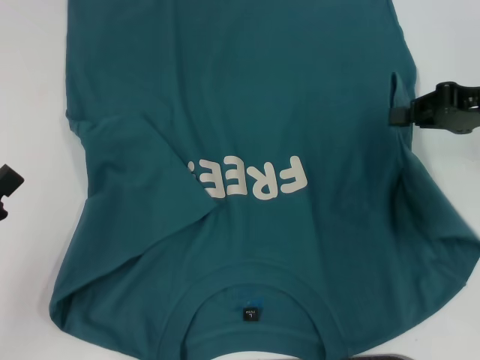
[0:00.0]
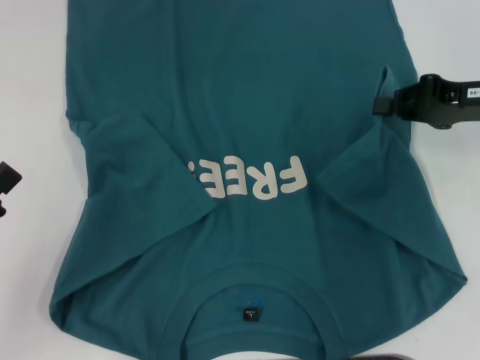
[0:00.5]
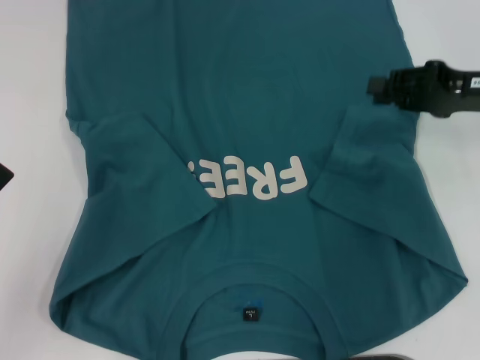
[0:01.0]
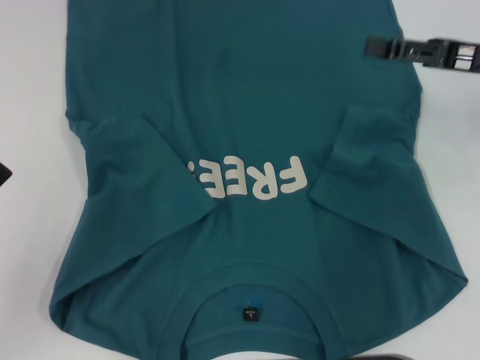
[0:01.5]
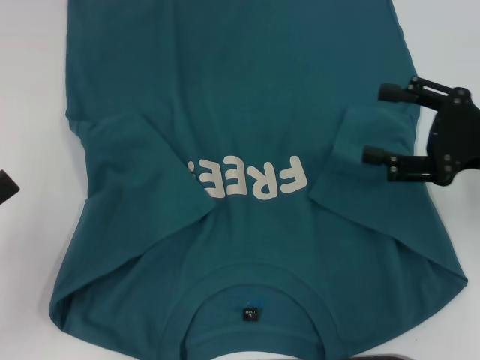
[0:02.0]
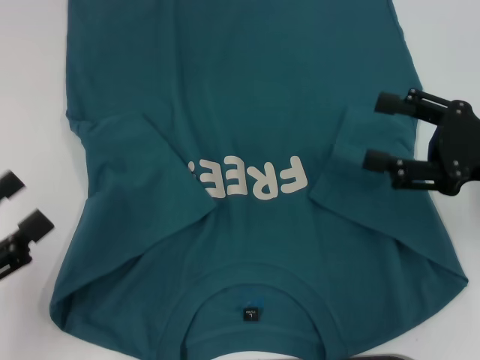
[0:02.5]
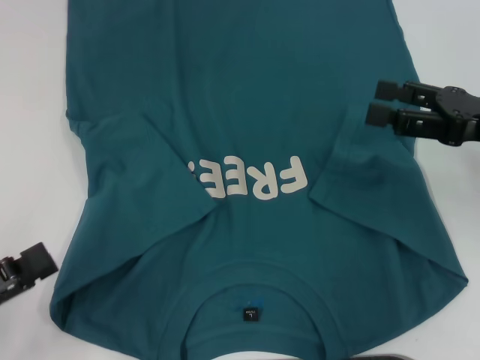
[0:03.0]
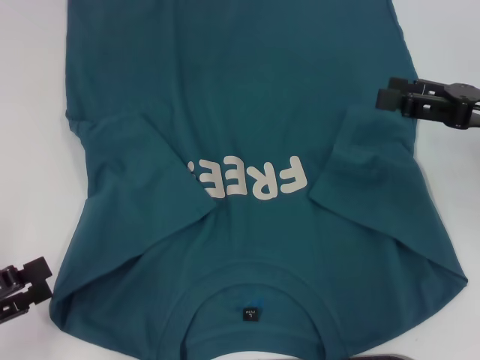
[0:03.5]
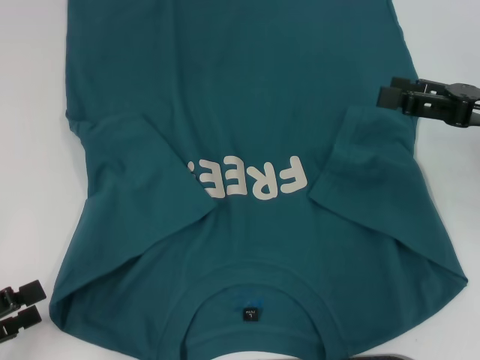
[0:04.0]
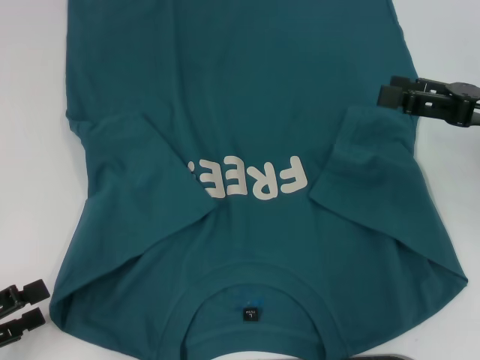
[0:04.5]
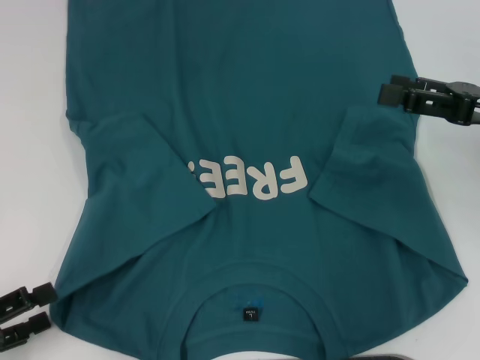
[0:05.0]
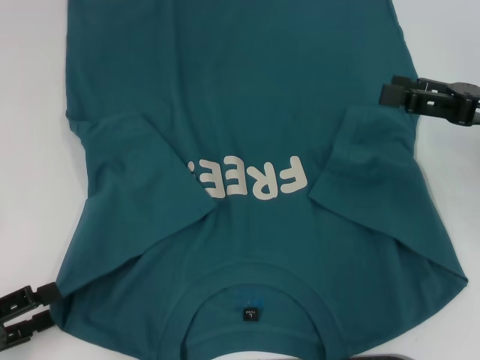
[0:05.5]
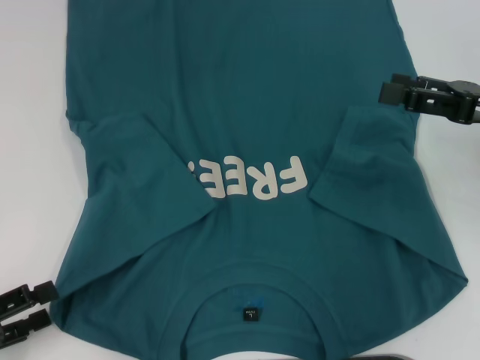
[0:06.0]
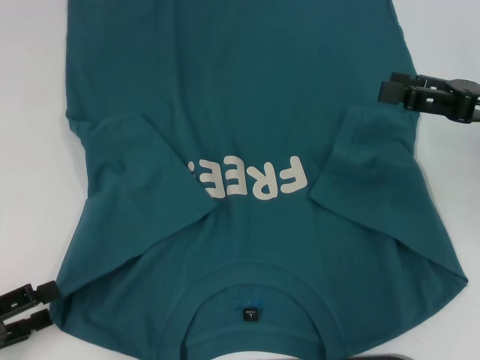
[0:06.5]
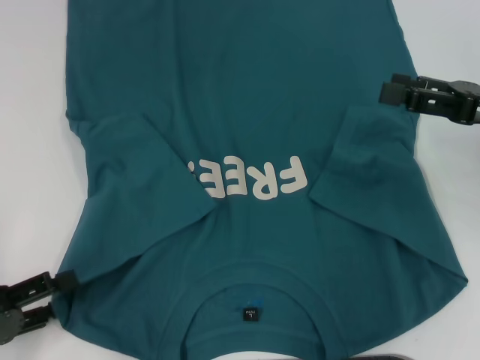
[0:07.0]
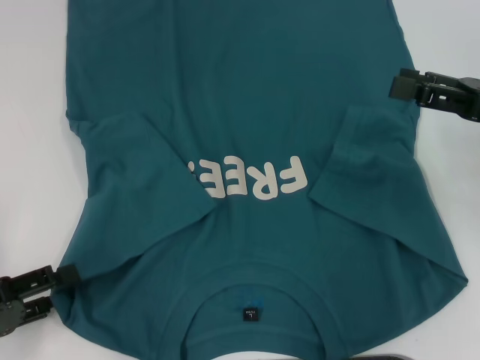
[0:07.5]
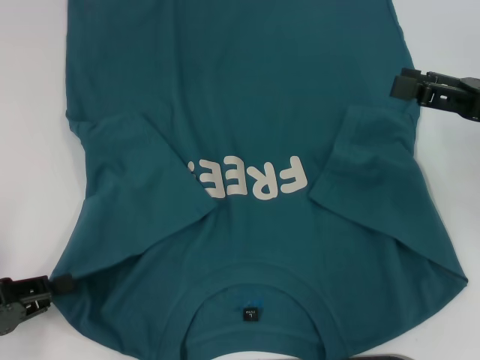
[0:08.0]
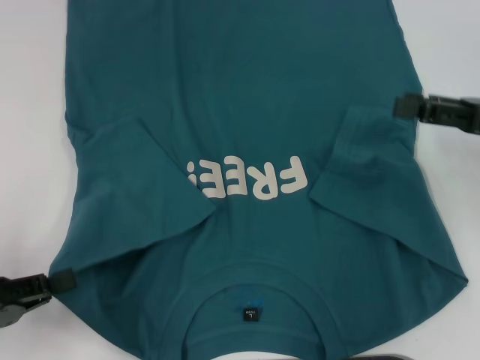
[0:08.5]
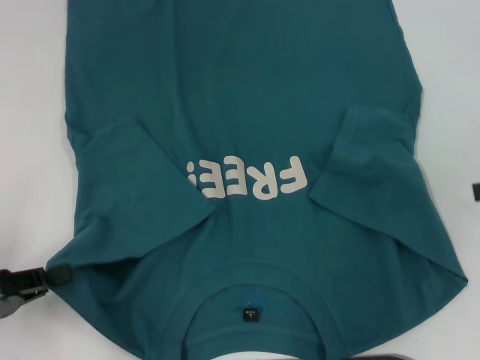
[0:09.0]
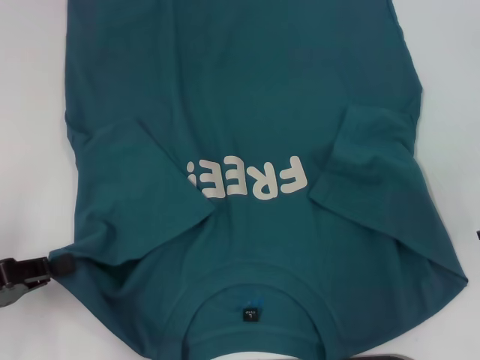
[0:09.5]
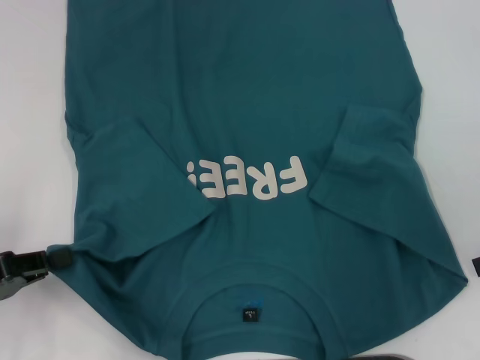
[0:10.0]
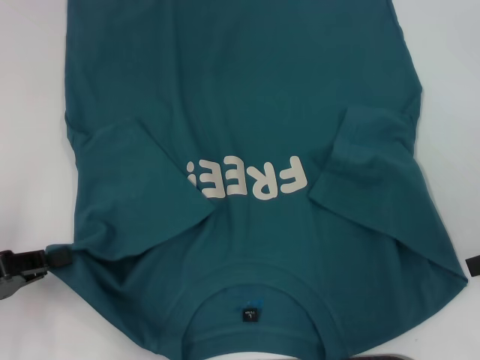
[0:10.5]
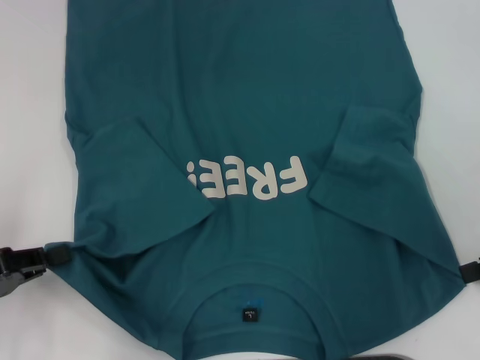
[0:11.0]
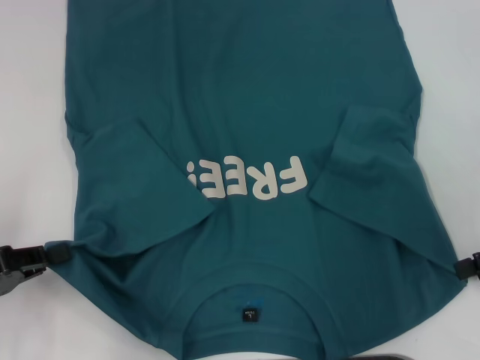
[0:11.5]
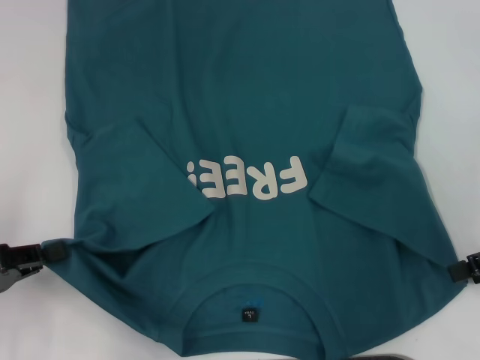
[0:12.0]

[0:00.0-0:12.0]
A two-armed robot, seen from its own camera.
Step, 0:01.5 to 0:08.5: Grab the bottom left corner with your left hand.
0:00.0 to 0:02.0: The right gripper is displaced backward by roughly 5 cm, and opens its fingers.
0:02.0 to 0:04.0: The left gripper is displaced downward by some 5 cm.
0:04.0 to 0:06.0: The grippers move only a little.
0:06.0 to 0:08.0: The left gripper closes its fingers.
0:08.0 to 0:10.0: The left gripper closes up, while the right gripper goes some 5 cm to the right.
0:10.0 to 0:12.0: The grippers make only small movements.

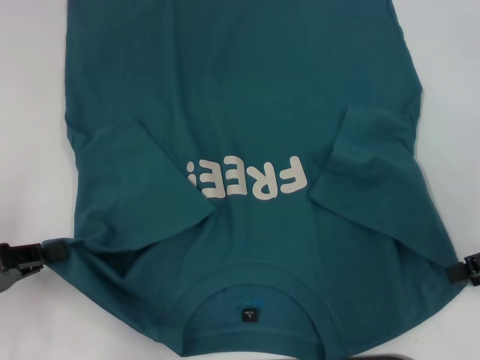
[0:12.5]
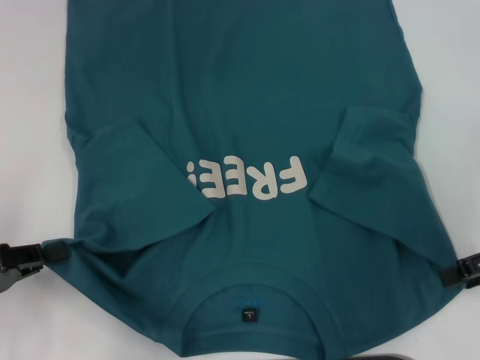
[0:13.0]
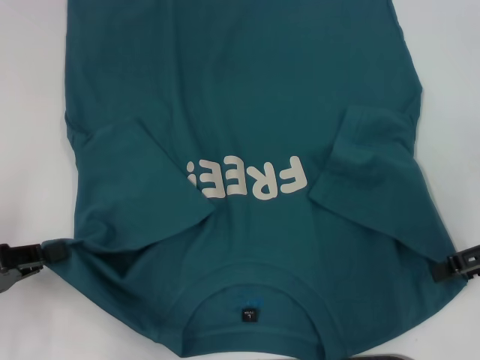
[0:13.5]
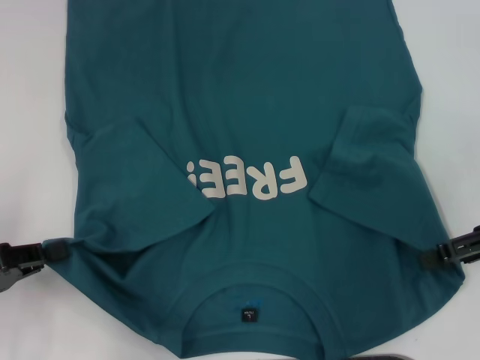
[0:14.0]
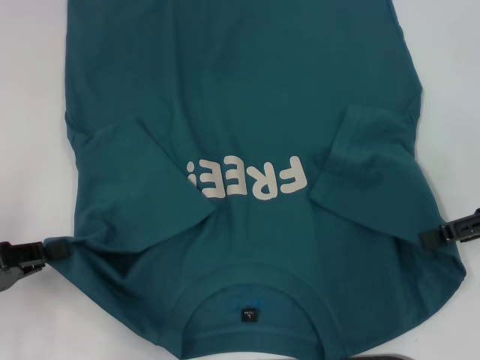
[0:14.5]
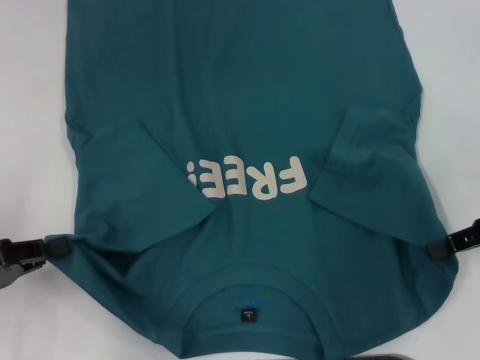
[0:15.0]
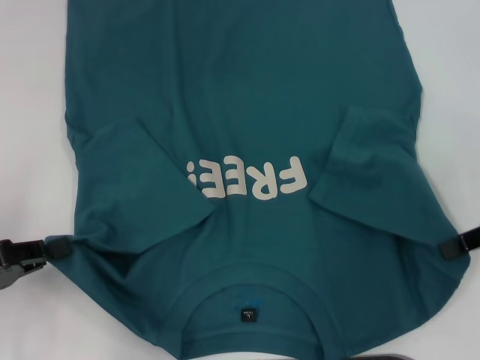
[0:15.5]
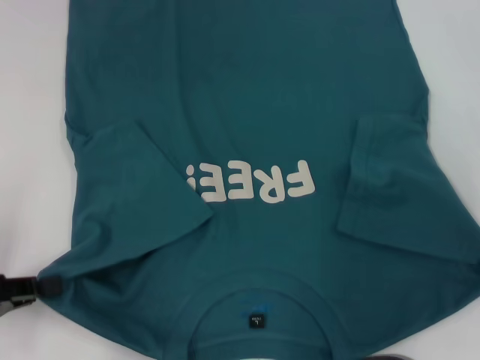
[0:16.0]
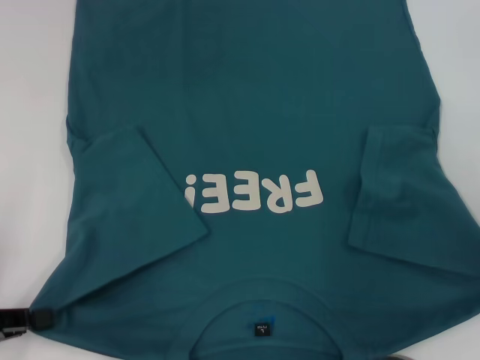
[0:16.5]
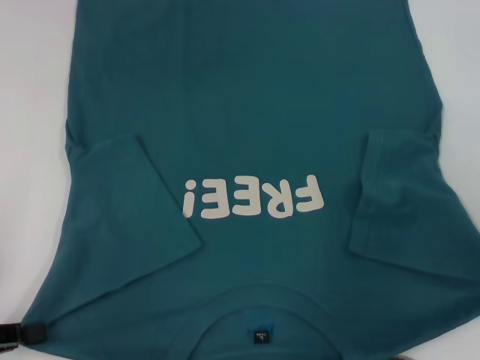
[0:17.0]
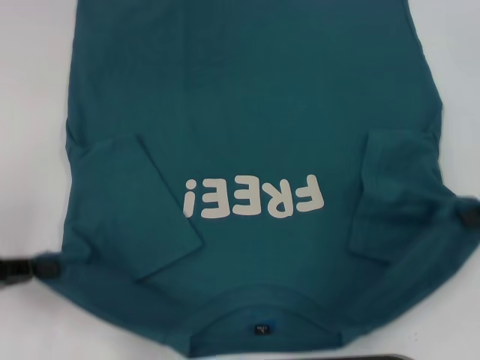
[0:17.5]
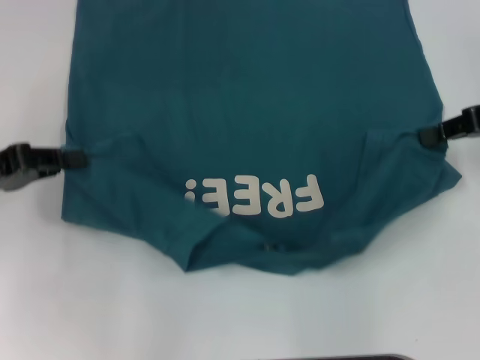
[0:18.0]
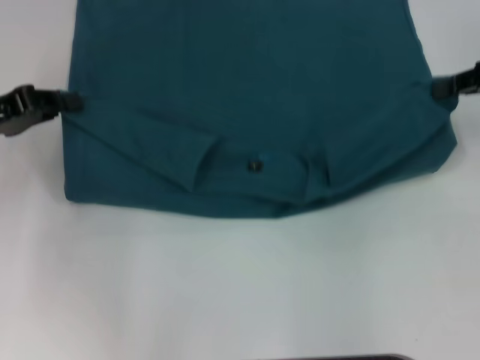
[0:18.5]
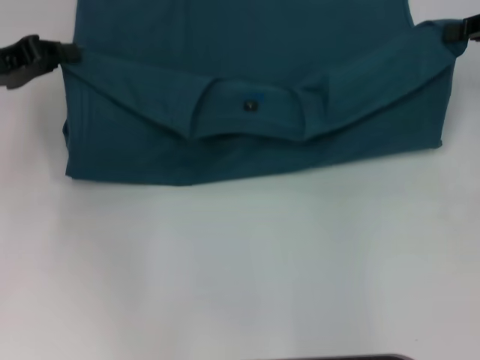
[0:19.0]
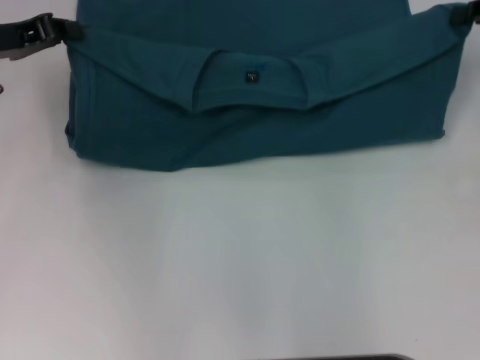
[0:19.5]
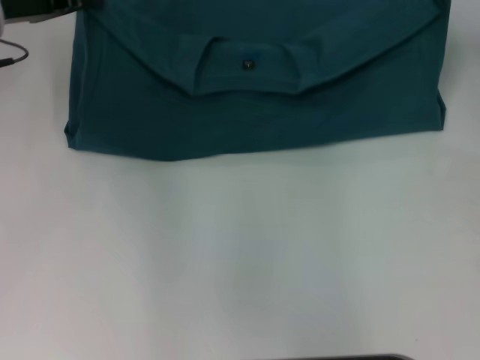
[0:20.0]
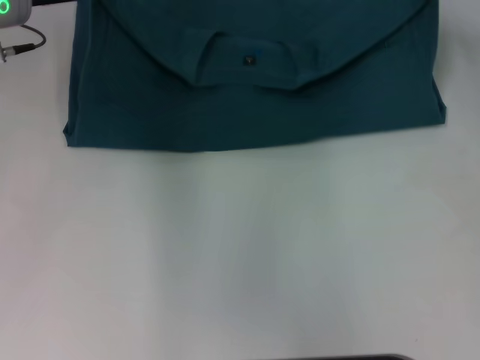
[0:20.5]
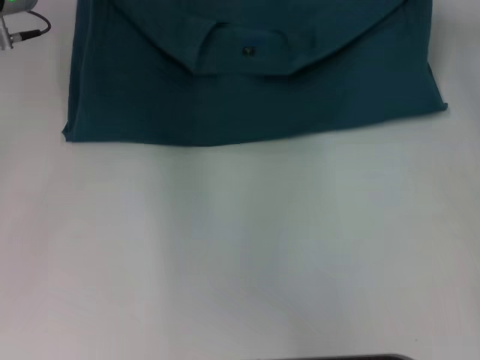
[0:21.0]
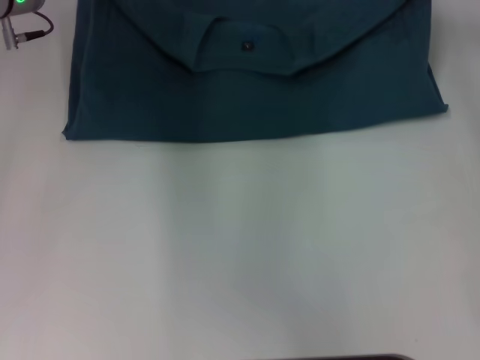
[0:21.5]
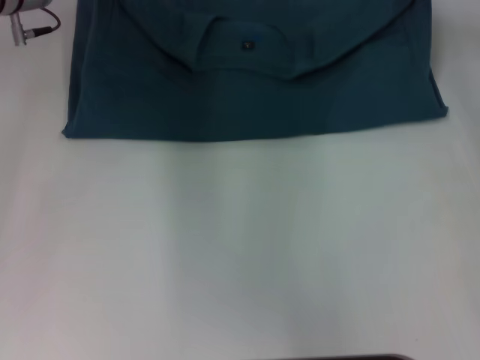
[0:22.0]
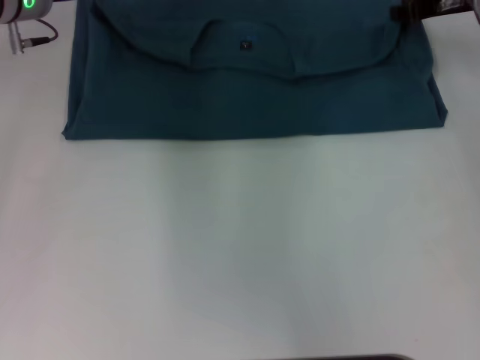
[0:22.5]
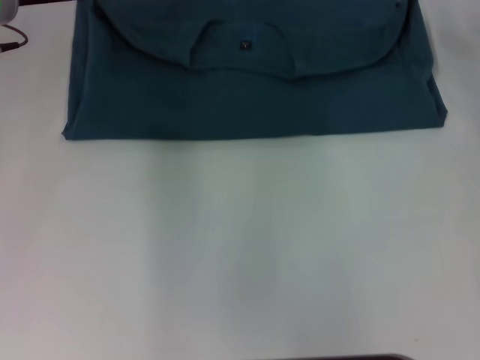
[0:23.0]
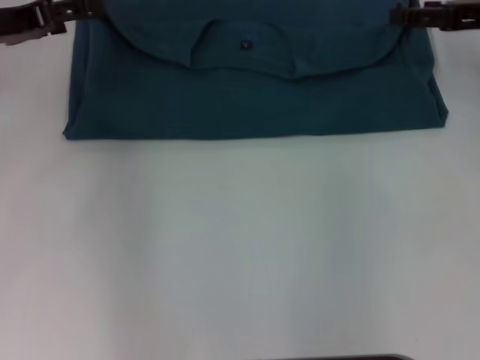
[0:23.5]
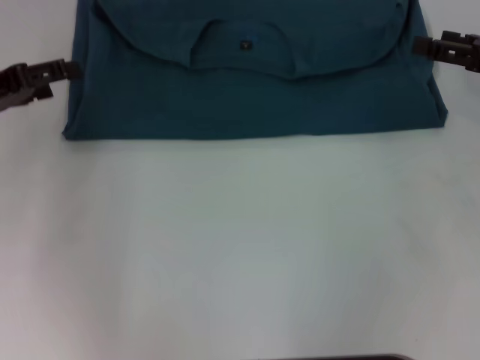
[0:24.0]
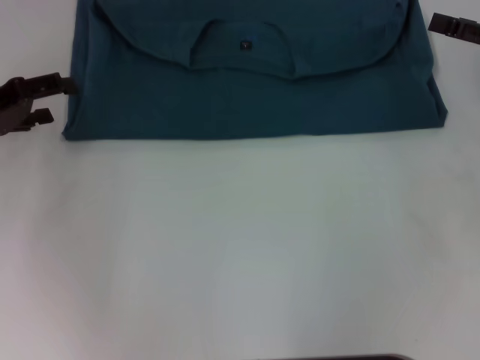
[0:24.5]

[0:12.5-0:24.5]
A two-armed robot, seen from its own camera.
Step, 0:12.5 to 0:15.0: Grab the bottom right corner with your right hand.
Step, 0:15.5 to 0:22.5: Fold the clothes to the left.
Step, 0:15.5 to 0:22.5: Fold the clothes to the right.
0:12.5 to 0:14.5: The grippers move only a little.
0:14.5 to 0:16.5: The right gripper closes up.
0:16.5 to 0:18.5: The left gripper goes about 15 cm forward; the right gripper moves forward and upward, some 10 cm.
0:18.5 to 0:20.5: The right gripper moves forward, about 10 cm; the left gripper goes about 15 cm forward and to the right.
0:20.5 to 0:22.5: The grippers make only small movements.
0:22.5 to 0:24.5: The left gripper heads to the left and backward, covering about 15 cm, and opens up. Meanwhile the right gripper is displaced backward and to the right by about 15 cm, and opens its fingers.

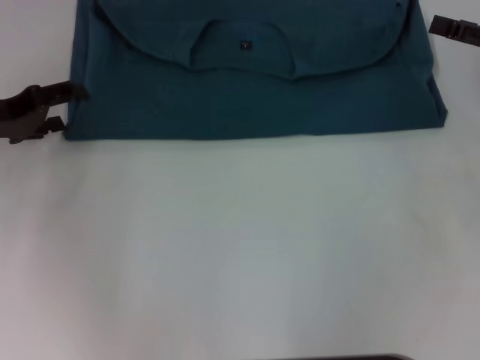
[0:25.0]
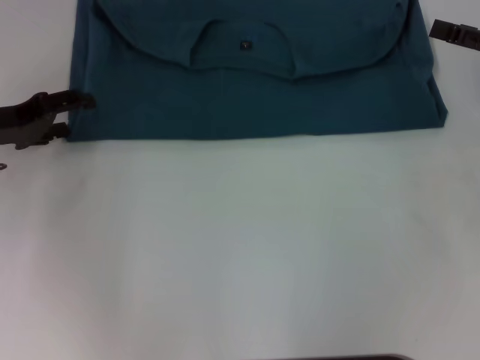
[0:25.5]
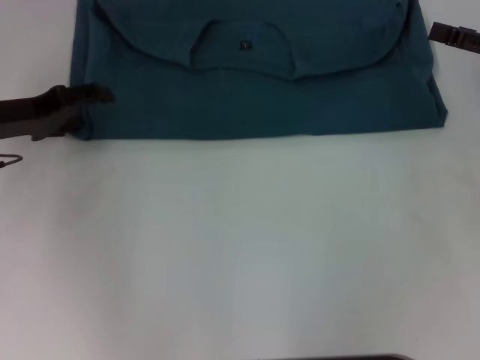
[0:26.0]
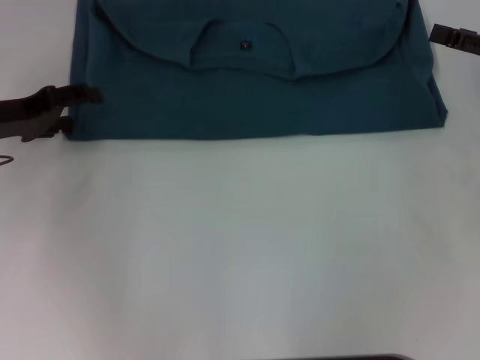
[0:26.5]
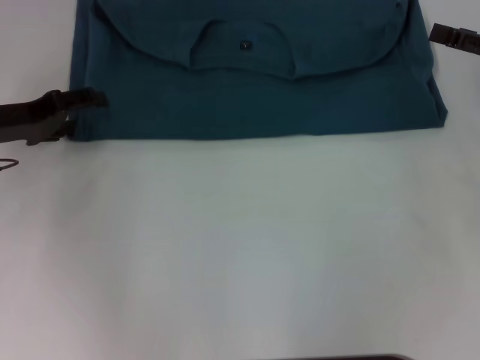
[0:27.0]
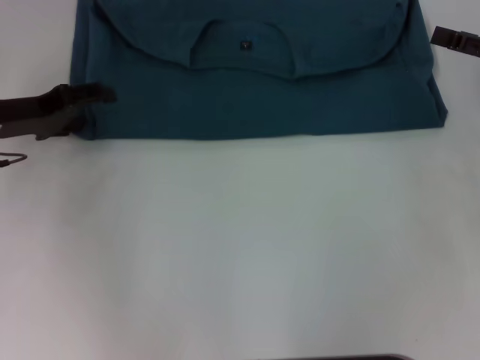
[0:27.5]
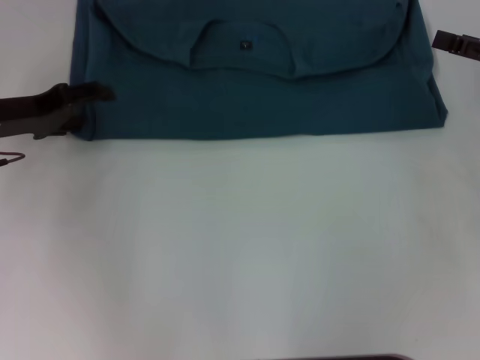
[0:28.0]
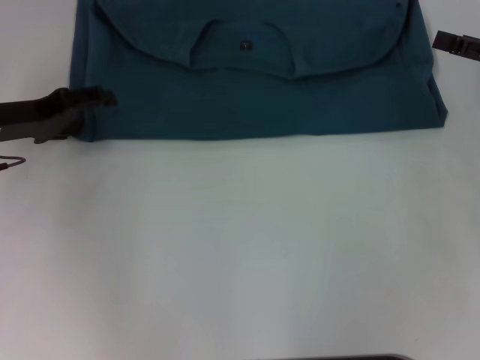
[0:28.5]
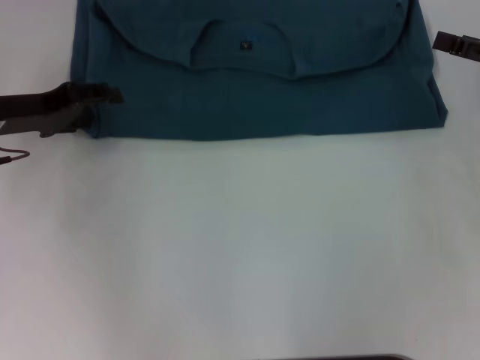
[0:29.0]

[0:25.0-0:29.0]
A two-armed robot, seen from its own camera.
0:25.0 to 0:29.0: The grippers make only small movements.
